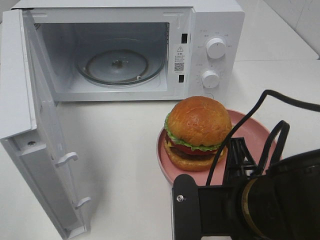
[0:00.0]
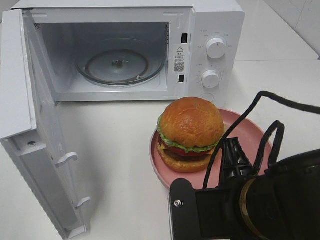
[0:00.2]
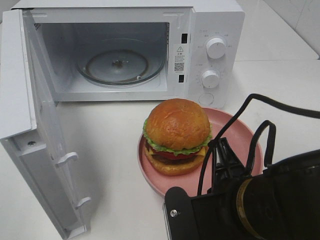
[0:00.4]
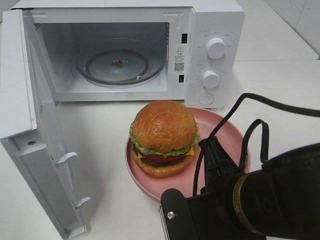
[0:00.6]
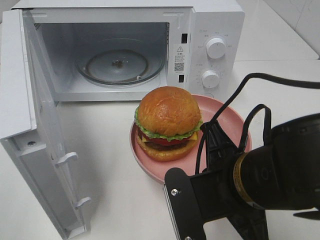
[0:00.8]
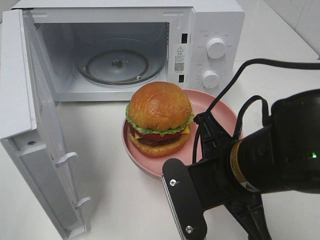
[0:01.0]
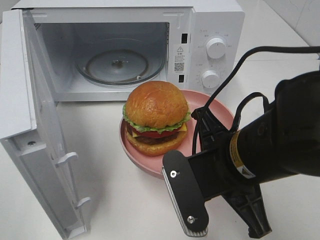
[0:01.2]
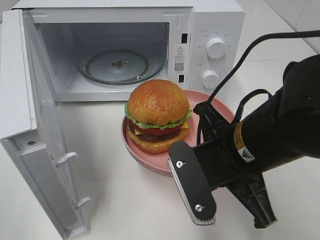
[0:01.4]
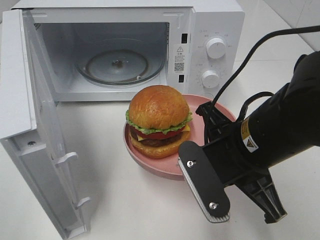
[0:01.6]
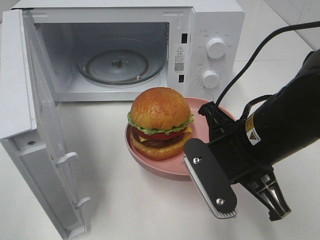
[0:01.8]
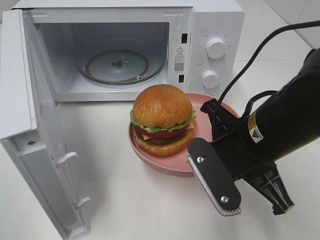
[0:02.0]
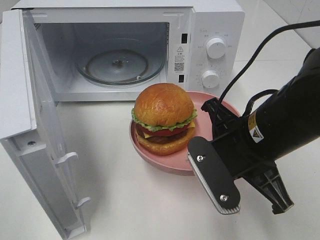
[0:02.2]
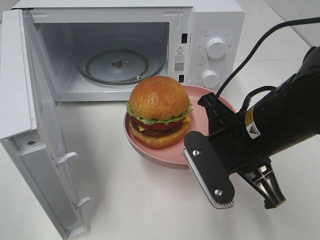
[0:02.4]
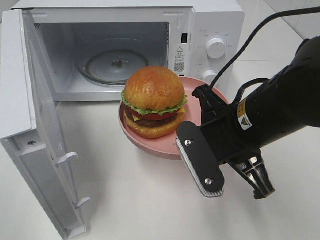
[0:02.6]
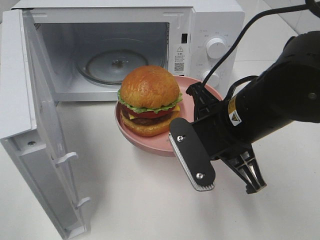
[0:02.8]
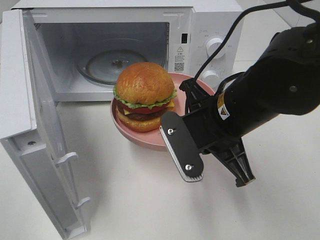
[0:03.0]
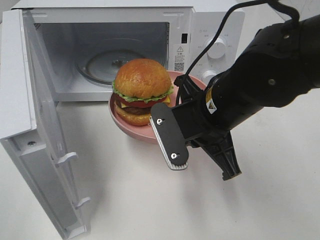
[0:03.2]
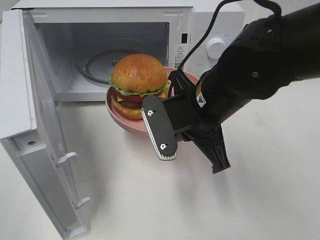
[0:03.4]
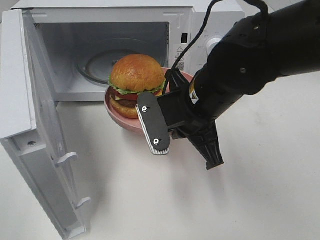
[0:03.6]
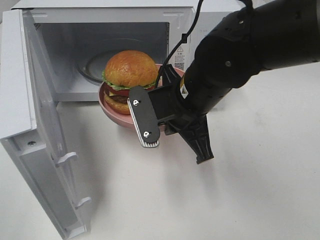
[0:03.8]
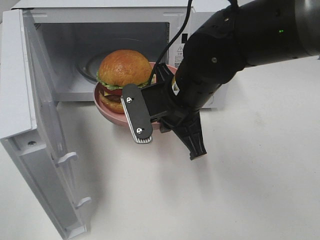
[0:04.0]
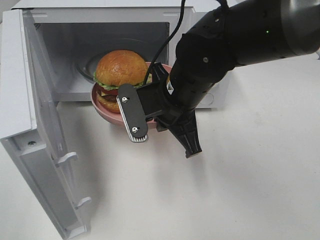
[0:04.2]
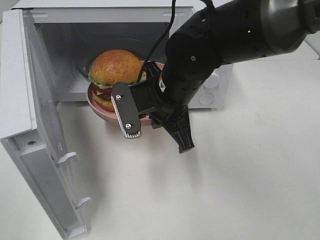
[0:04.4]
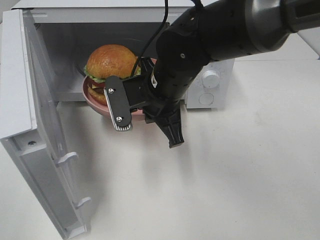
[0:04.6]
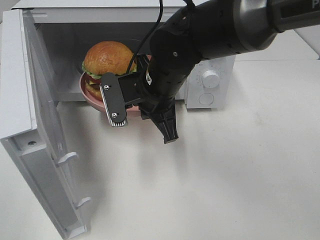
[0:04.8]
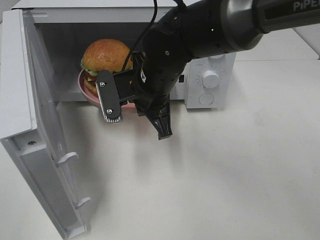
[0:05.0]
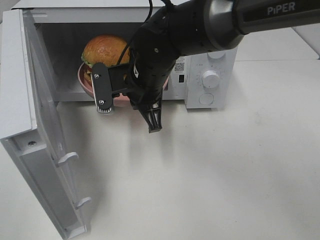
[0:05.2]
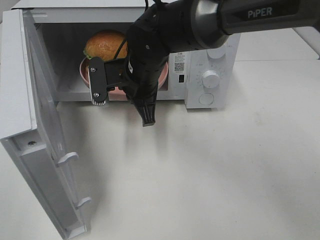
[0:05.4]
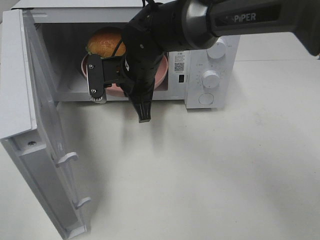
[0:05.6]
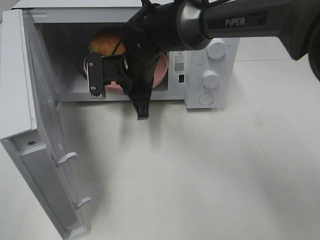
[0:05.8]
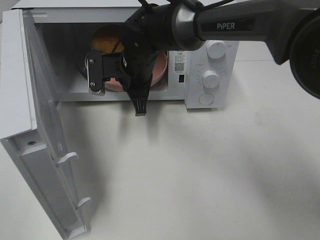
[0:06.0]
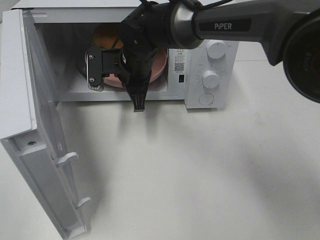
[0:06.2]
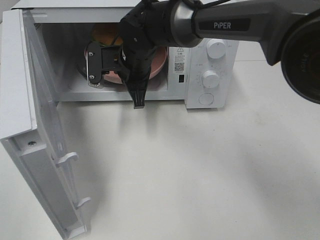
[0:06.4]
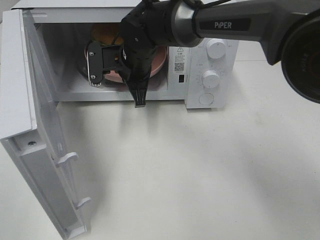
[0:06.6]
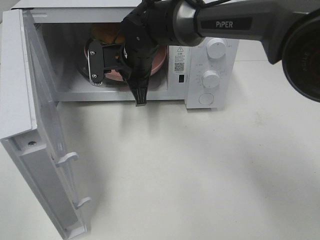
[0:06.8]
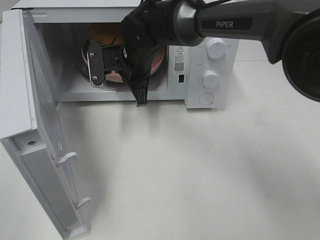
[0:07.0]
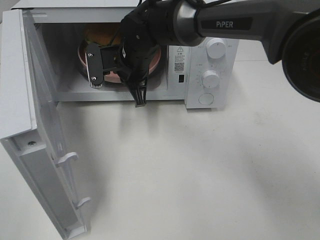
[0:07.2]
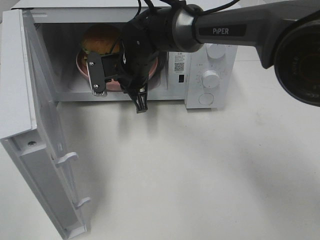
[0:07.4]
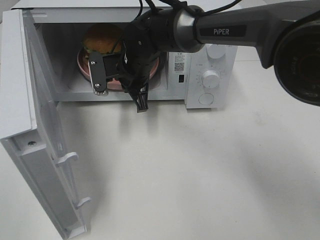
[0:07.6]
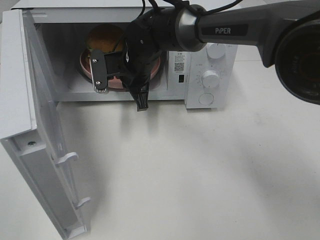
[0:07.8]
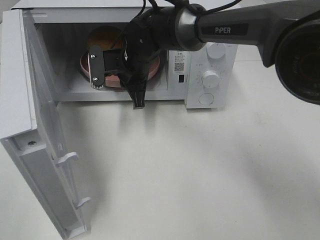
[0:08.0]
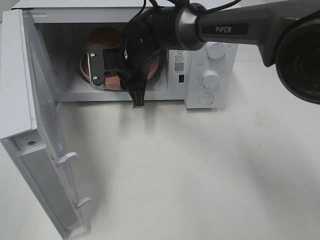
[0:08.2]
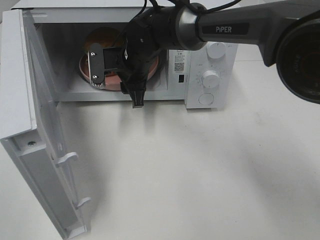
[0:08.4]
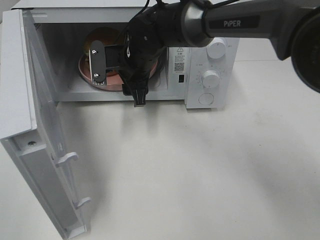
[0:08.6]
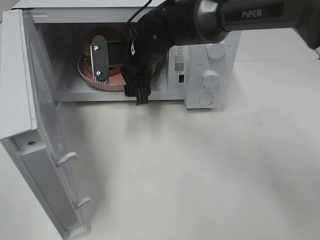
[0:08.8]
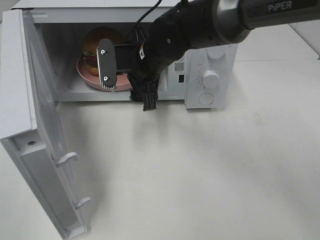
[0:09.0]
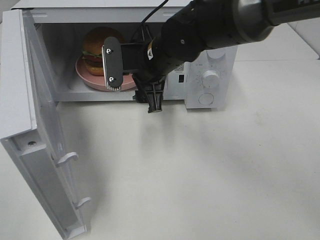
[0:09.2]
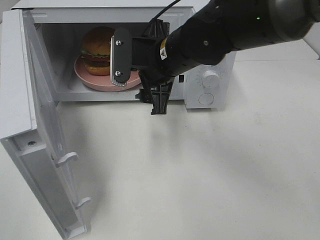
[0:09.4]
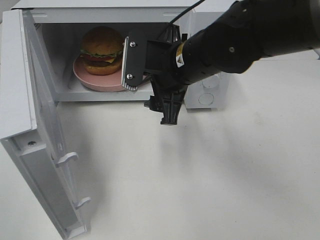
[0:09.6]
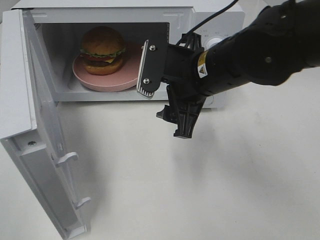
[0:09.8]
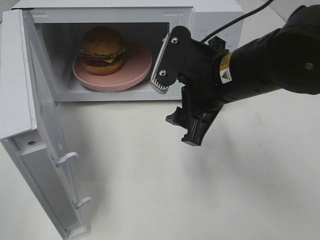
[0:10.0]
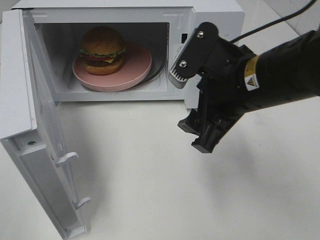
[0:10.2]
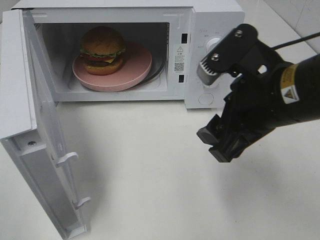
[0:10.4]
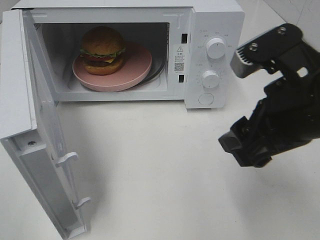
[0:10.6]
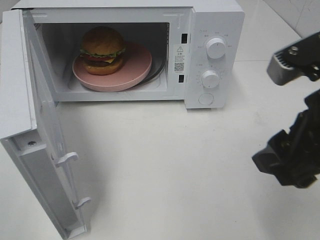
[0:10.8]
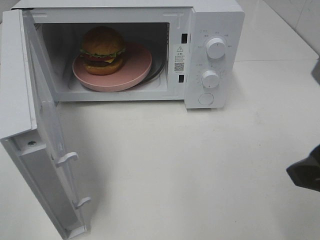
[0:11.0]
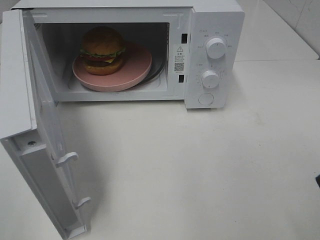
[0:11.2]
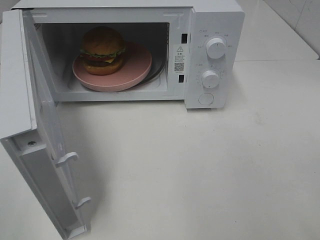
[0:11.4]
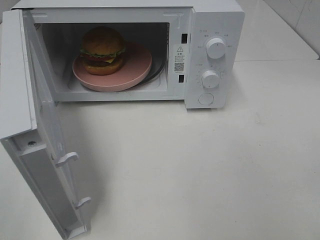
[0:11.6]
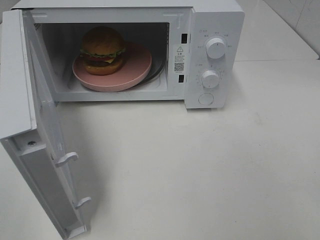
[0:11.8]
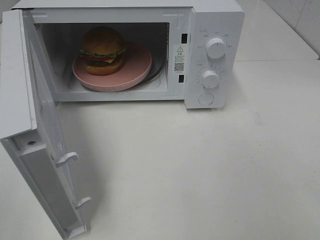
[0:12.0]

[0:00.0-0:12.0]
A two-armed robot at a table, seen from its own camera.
Task of the whole recording: Heat the burger.
Step, 0:00.0 to 0:08.2: Right hand: place the plate in the microwave.
0:00.0 to 0:01.6: The right gripper heads forward, covering roughly 5 cm.
0:03.0 to 0:04.4: The right gripper moves forward and to the left, some 10 cm.
0:04.4 to 0:06.0: The right gripper travels forward and to the left by approximately 10 cm.
0:06.0 to 0:07.6: The grippers stay close to where they were, moving slightly.
0:07.6 to 0:09.0: The right gripper changes place by about 5 cm, and opens its fingers.
0:09.0 to 0:10.4: The right gripper is displaced backward and to the right by about 25 cm.
0:10.4 to 0:12.0: The right gripper is displaced backward and to the right by approximately 20 cm.

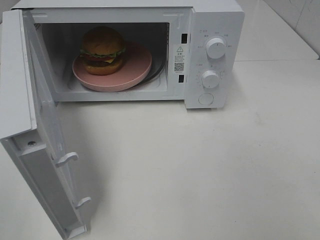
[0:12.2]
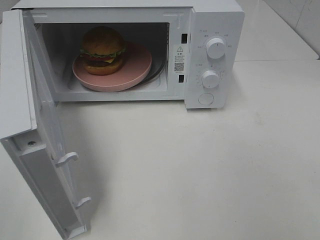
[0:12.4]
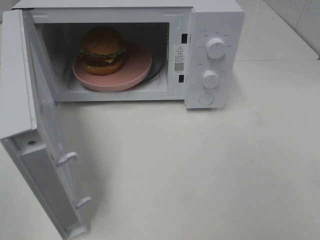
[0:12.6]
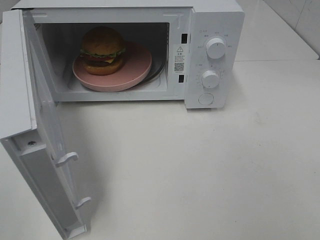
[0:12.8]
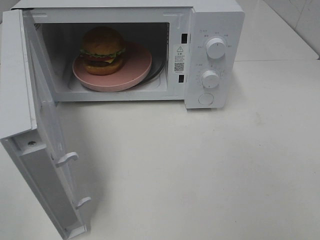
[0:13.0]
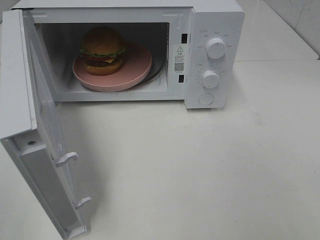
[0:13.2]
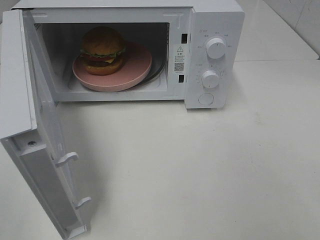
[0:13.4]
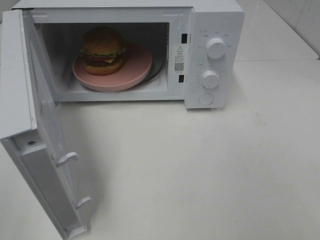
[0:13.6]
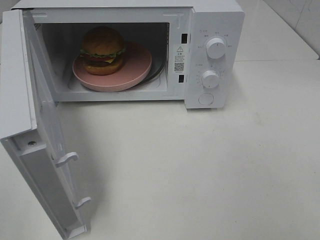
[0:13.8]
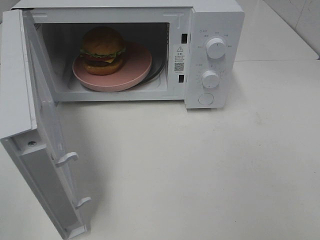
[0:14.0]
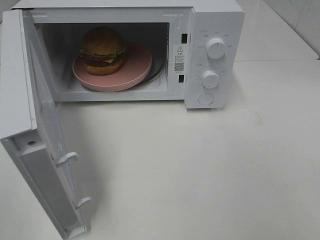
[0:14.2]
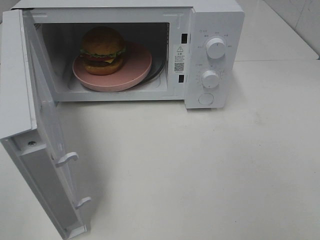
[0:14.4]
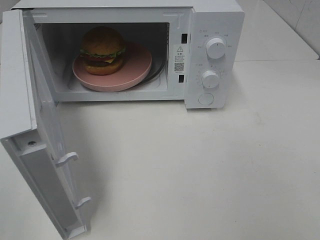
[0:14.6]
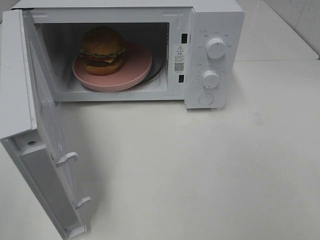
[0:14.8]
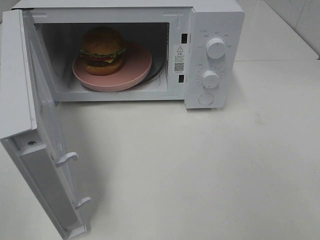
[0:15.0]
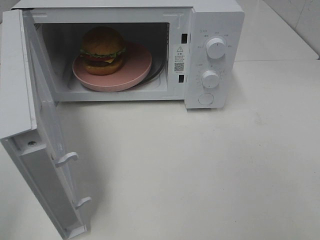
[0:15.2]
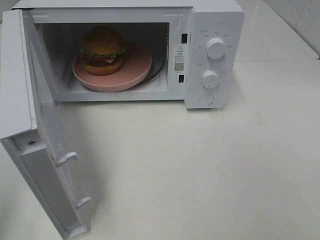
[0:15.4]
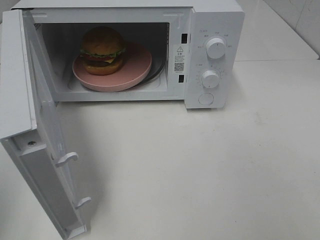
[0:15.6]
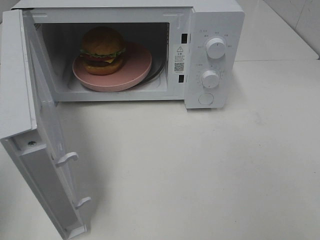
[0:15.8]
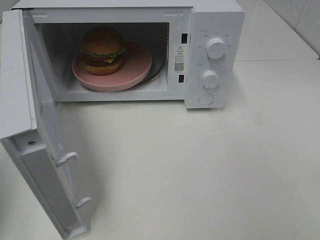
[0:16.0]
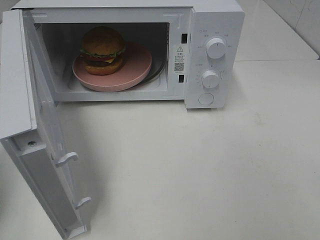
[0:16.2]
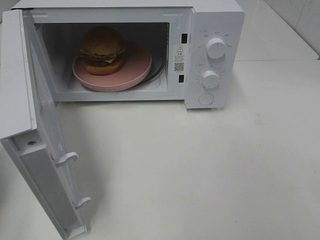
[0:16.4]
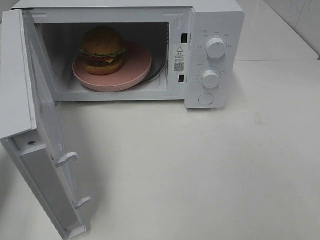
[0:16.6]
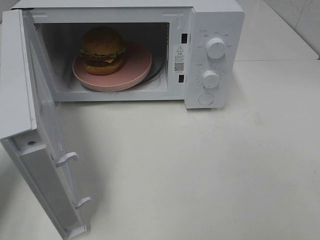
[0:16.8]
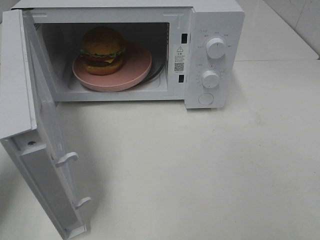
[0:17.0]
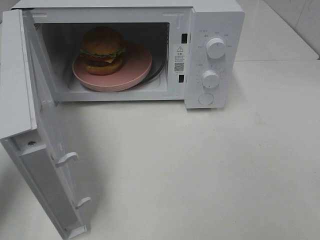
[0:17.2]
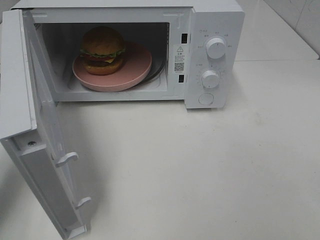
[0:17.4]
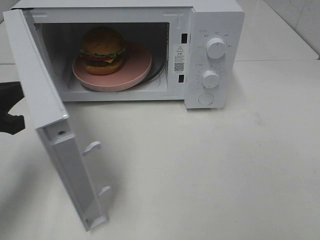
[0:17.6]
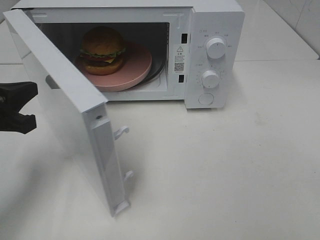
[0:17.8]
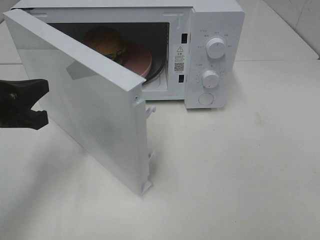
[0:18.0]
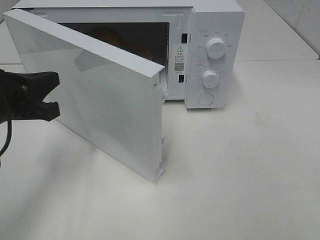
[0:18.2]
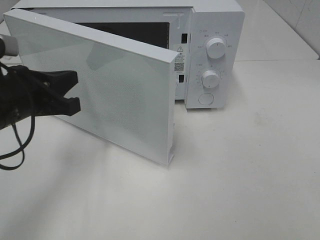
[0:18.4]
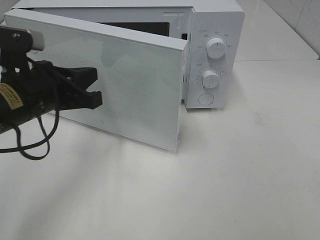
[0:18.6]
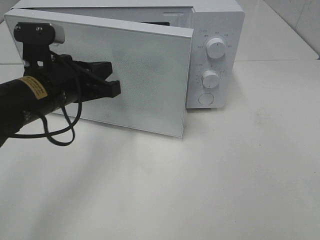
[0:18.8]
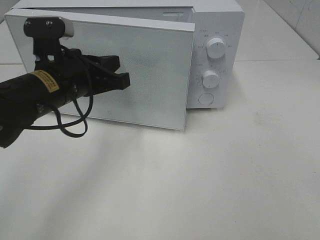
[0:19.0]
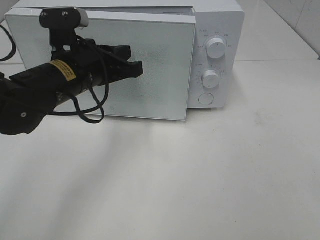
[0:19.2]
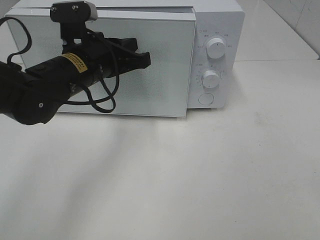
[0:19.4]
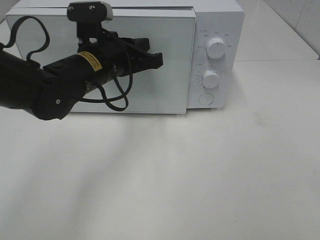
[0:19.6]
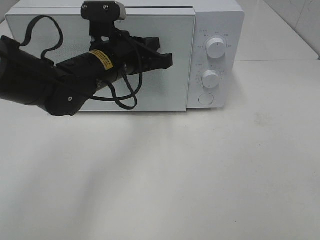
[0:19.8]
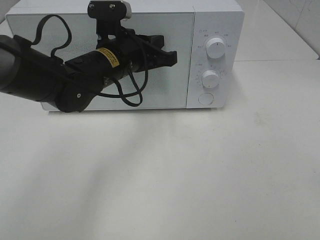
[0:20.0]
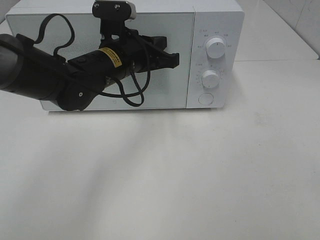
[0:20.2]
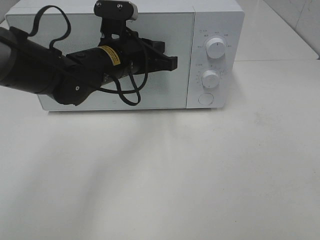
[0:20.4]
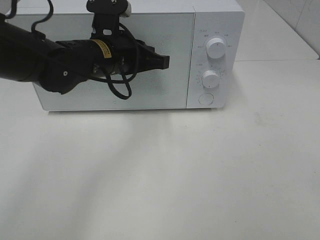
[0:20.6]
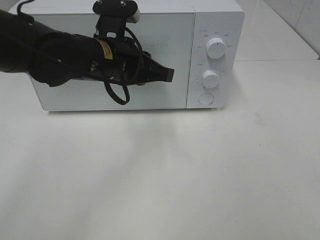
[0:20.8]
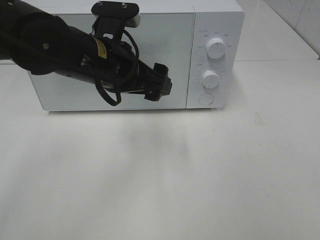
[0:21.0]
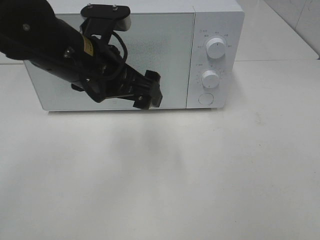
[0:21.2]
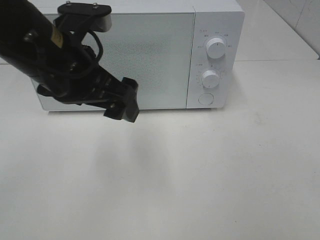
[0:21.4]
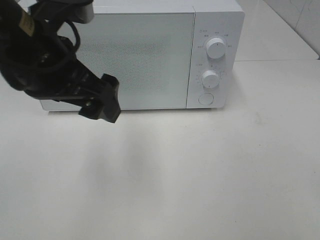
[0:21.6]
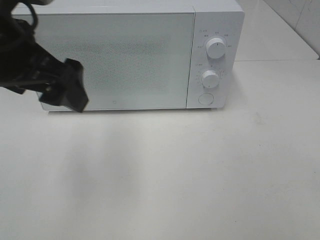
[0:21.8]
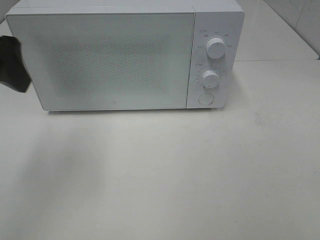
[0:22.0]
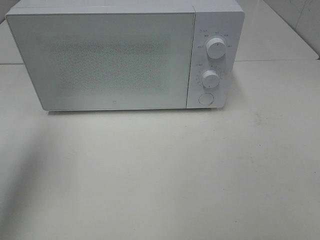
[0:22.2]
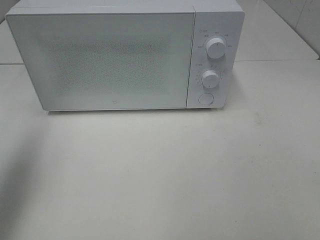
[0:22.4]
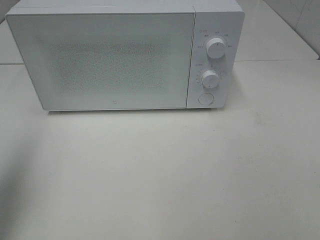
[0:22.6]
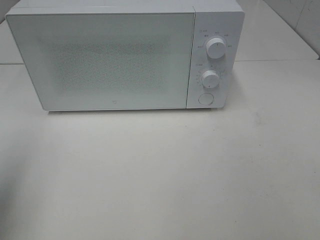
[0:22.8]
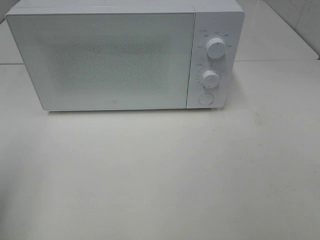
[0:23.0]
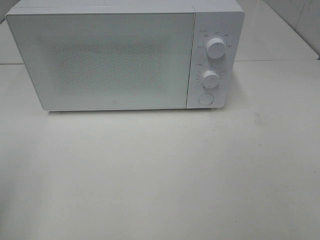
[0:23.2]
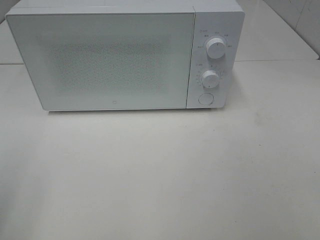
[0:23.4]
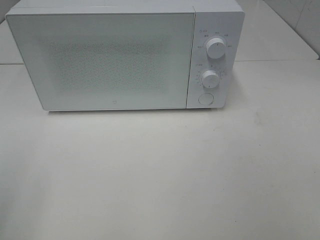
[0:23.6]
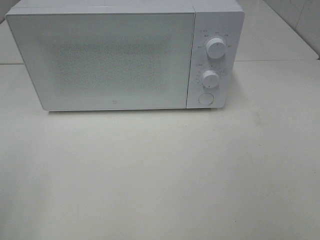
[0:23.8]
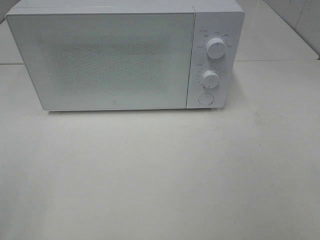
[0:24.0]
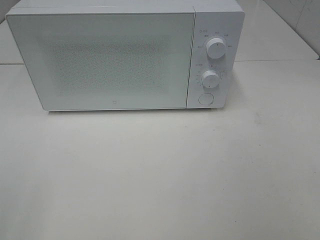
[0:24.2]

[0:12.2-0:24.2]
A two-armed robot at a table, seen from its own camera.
Task of the whole recording: Heat the burger.
Step, 0:12.2 to 0:20.6: Left hand: close the microwave door.
0:15.2 to 0:16.6: The left gripper is displaced forward by approximately 15 cm, and closes up.
0:16.6 to 0:18.2: The left gripper is displaced to the right and downward by approximately 10 cm.
0:18.2 to 0:19.8: The left gripper is displaced to the right and forward by approximately 20 cm.
0:19.8 to 0:21.2: The left gripper moves backward and upward, approximately 10 cm, and opens up.
0:21.2 to 0:22.6: The left gripper goes roughly 25 cm to the left.
0:22.6 to 0:24.2: The left gripper goes some 20 cm backward.
